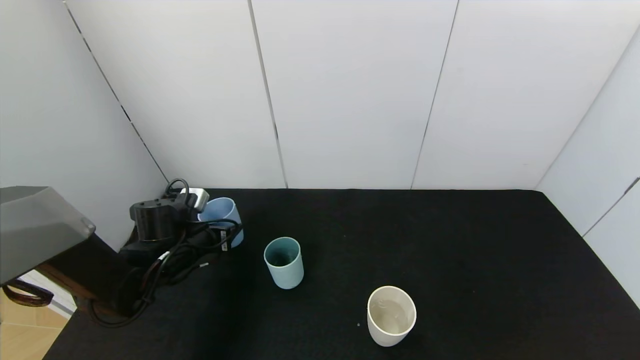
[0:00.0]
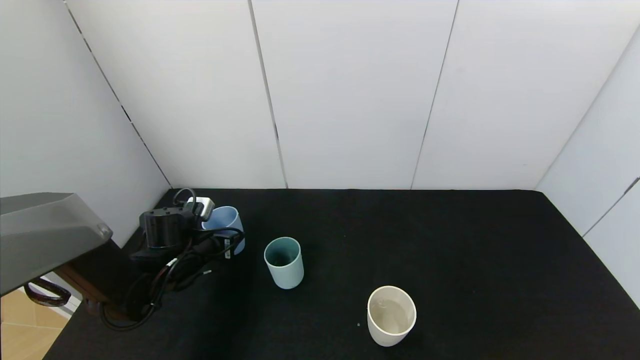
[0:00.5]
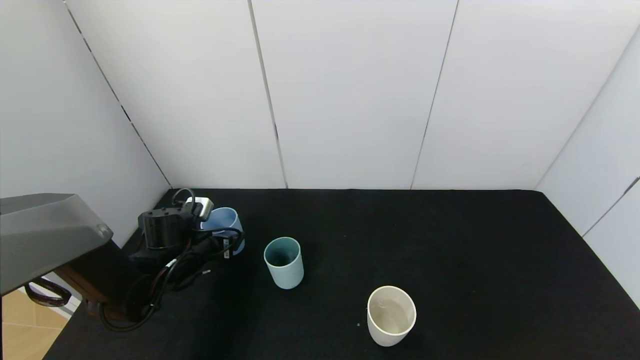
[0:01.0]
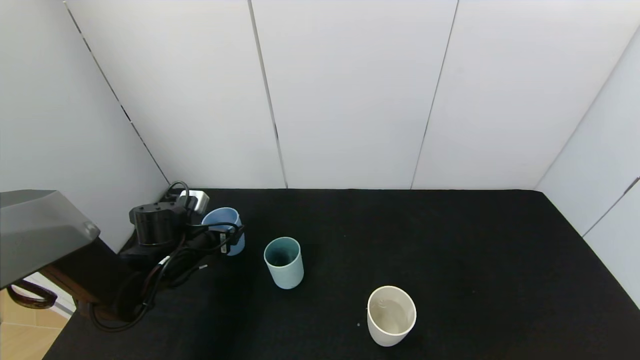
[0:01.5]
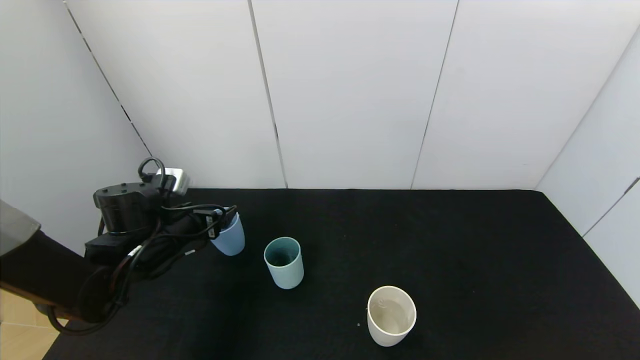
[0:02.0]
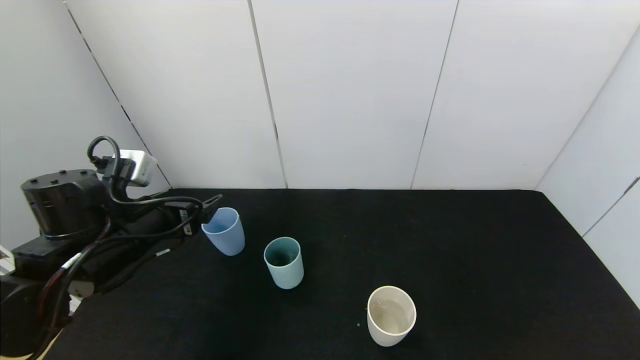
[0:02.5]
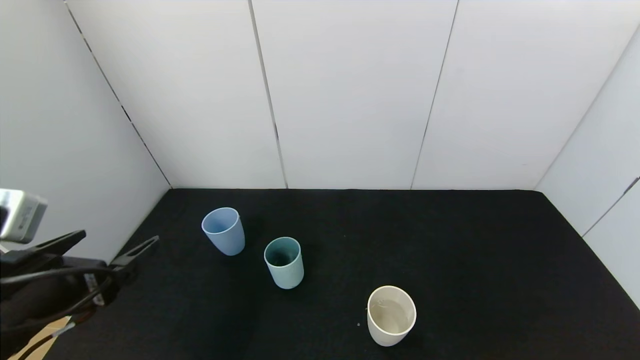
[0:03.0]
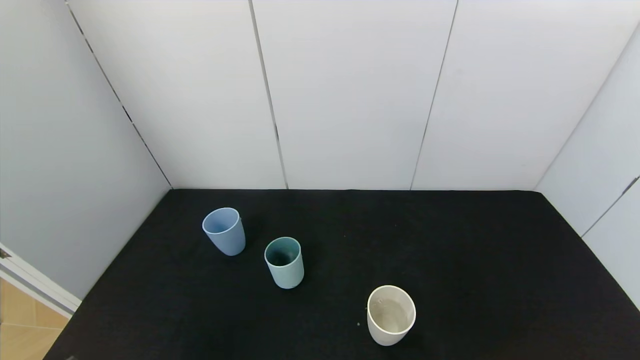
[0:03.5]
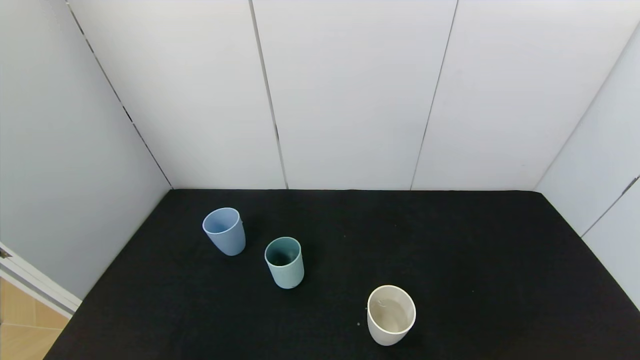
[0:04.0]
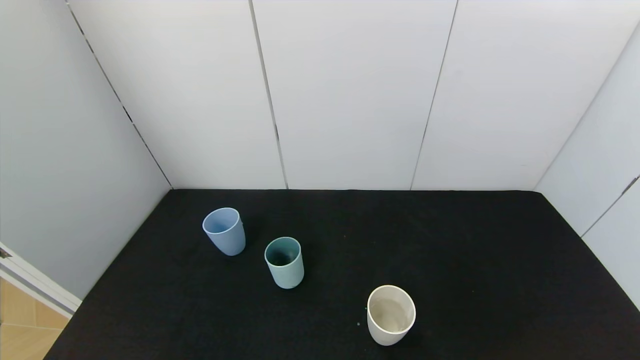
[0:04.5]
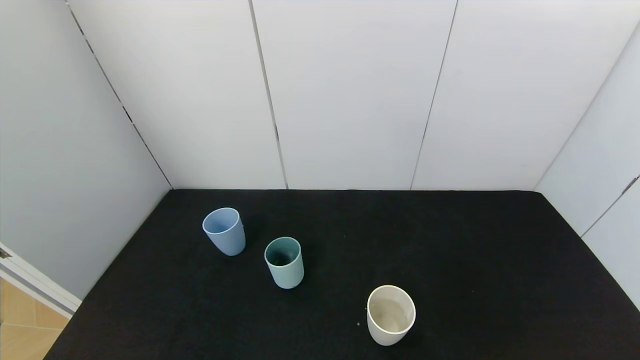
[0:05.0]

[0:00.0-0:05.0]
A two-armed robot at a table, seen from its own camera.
Task of the whole recording: use the gripper to pour the water into the other two cups on black table.
0:00.0 to 0:02.5: The left gripper goes roughly 10 cm upward and backward, and opens its fingers.
0:02.5 to 0:05.0: The left gripper goes approximately 30 cm backward.
